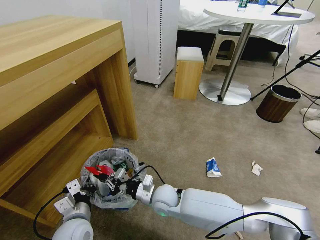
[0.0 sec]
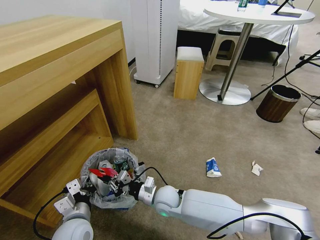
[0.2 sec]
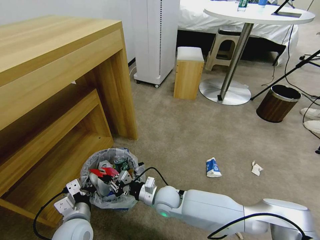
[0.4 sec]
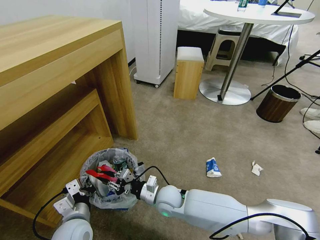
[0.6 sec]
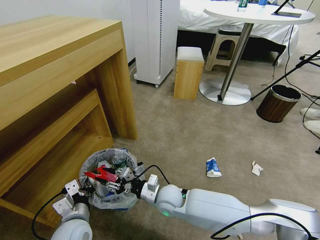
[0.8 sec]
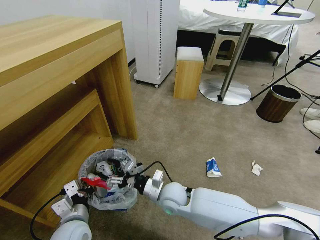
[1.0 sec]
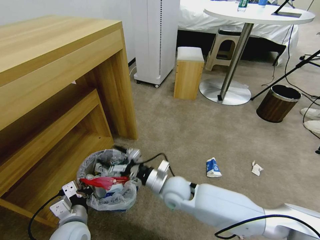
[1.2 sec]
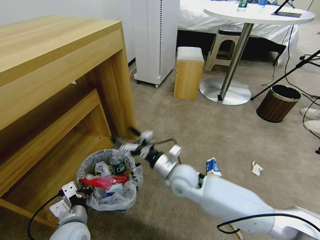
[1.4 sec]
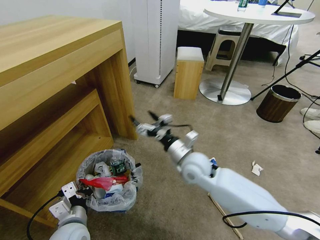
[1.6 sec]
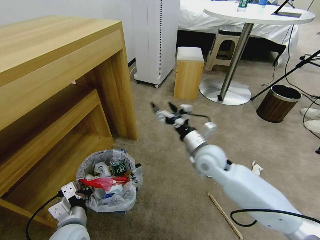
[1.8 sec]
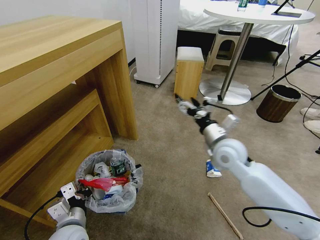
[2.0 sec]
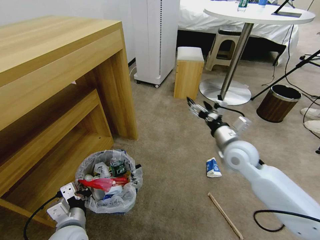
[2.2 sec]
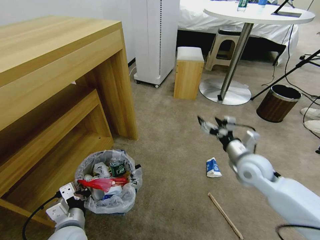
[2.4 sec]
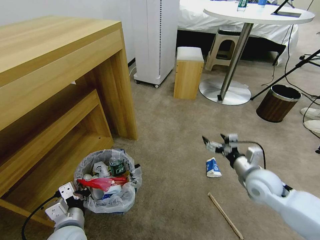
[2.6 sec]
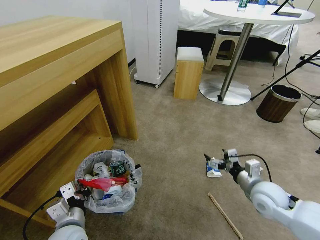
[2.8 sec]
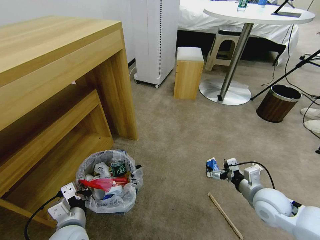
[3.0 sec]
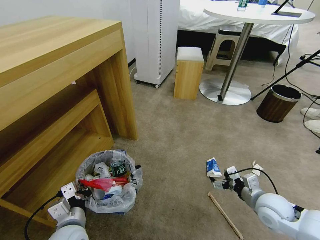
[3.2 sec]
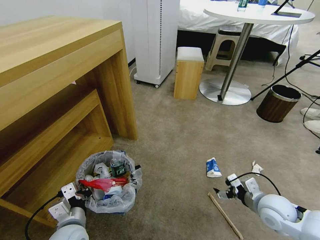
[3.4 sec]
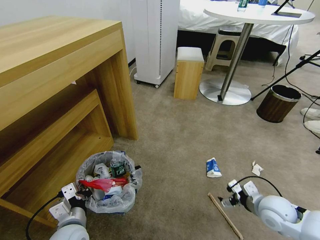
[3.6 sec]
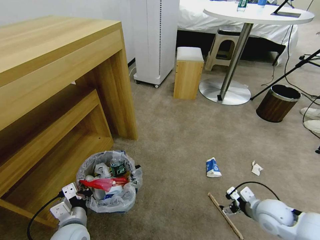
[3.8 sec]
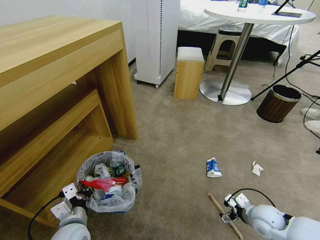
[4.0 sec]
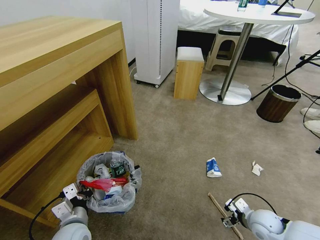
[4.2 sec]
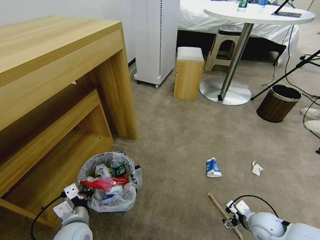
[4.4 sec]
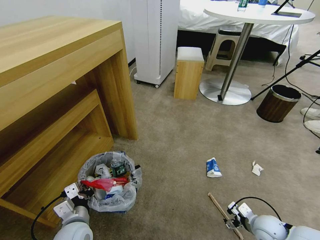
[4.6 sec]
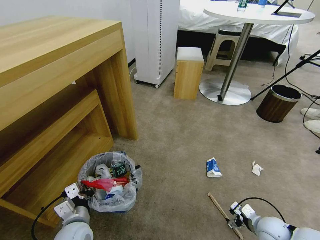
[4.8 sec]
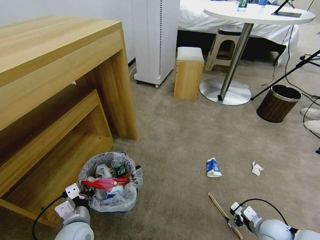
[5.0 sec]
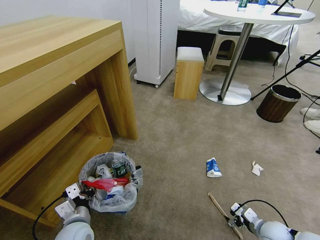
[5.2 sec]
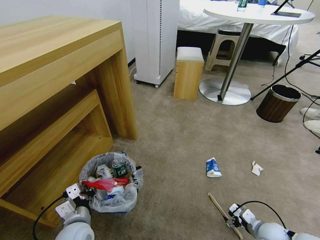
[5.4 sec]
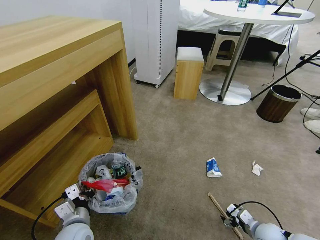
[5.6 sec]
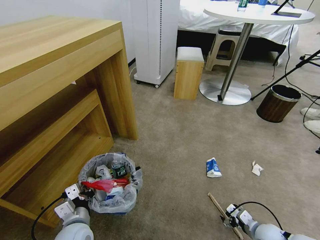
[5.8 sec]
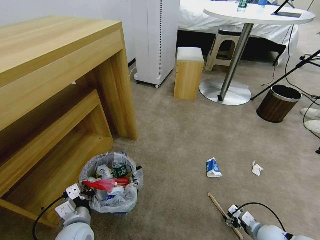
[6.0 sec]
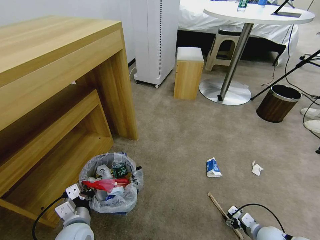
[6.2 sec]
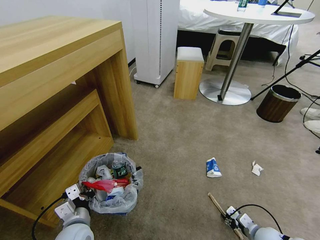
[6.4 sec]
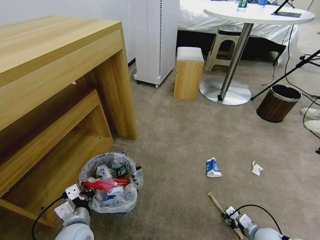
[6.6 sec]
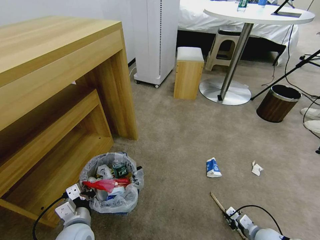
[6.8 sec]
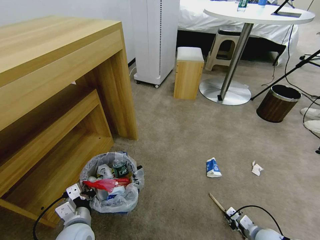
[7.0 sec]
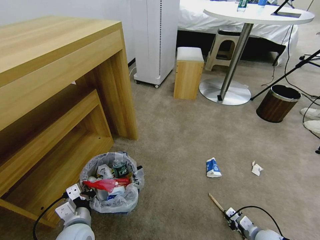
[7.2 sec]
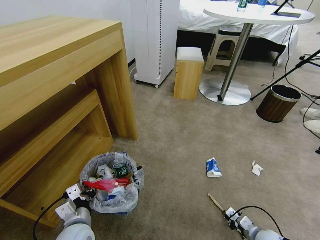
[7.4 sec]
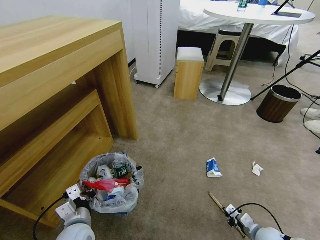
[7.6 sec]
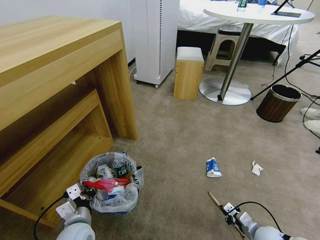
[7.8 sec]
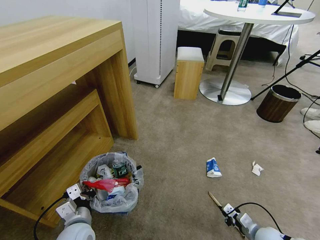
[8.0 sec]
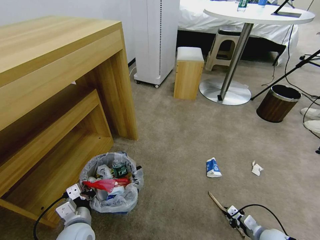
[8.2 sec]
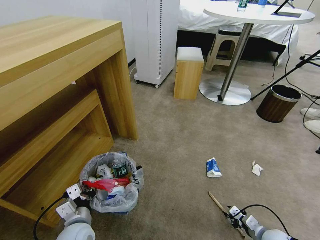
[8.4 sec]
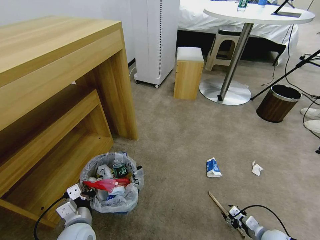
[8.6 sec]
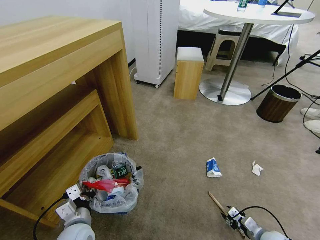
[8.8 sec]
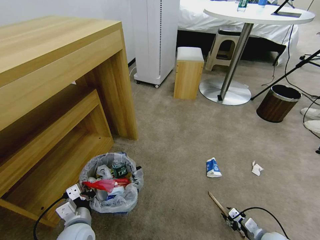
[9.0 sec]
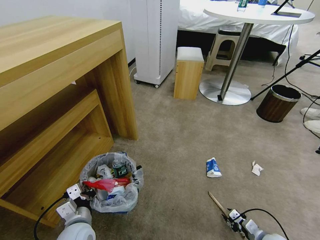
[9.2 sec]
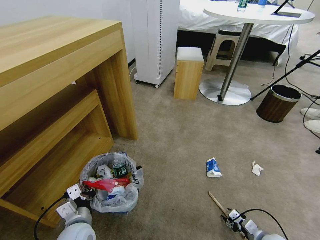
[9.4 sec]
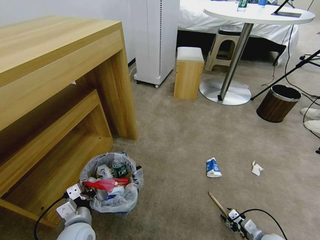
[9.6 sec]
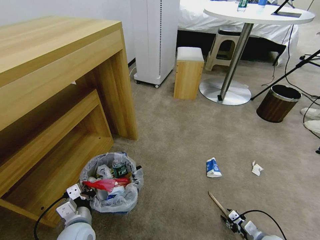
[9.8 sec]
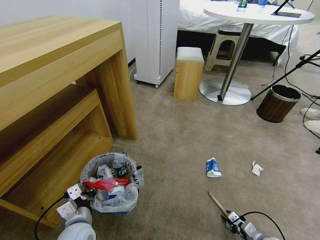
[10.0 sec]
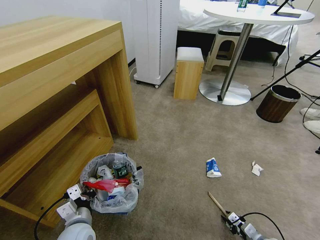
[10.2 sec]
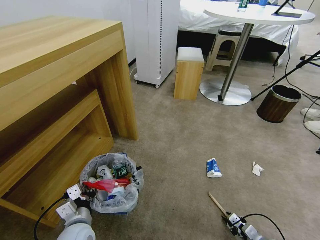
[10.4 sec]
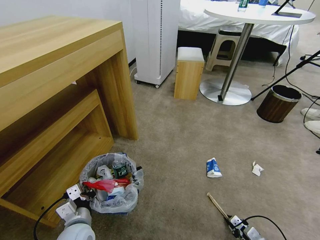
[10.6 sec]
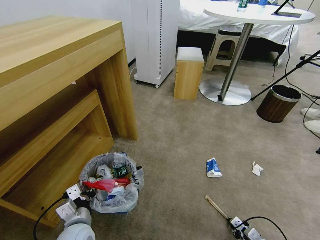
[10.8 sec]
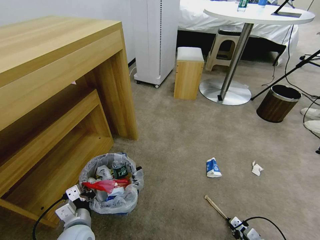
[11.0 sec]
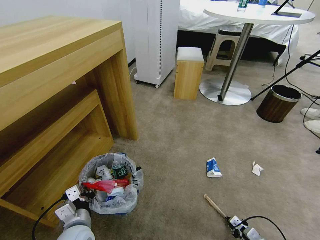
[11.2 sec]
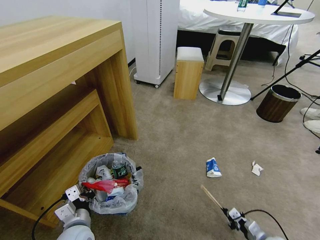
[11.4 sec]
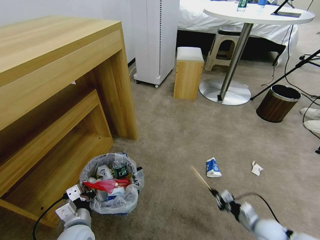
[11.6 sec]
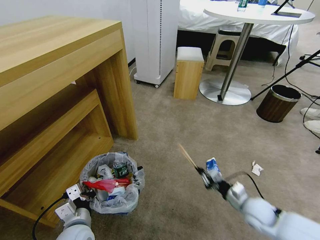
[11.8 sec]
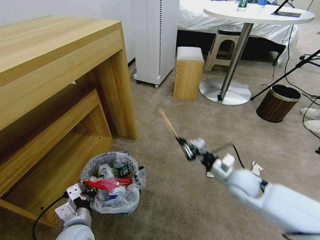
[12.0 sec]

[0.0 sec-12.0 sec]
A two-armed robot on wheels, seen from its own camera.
Task of the whole recording: Pick up the trash bin and place the garbage on the floor into it.
0.0 sec to 1.6 sec: The right gripper is displaced upward and to the right by roughly 15 cm, and opens up.
1.6 sec to 3.0 sec: The right gripper is displaced to the right and backward by approximately 25 cm.
3.0 sec to 4.4 sec: The right gripper heads downward, covering about 10 cm.
4.4 sec to 6.0 sec: The right gripper goes approximately 5 cm downward.
6.0 sec to 7.6 sec: The right gripper closes up.
7.6 sec to 9.0 sec: The right gripper opens.
9.0 sec to 10.4 sec: There are only small adjustments of the grippers.
10.4 sec to 12.0 sec: The right gripper is displaced upward, forward and to the left by some 30 cm.

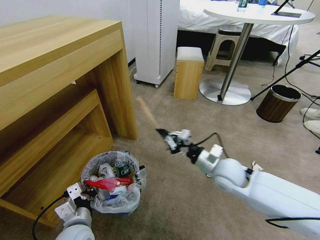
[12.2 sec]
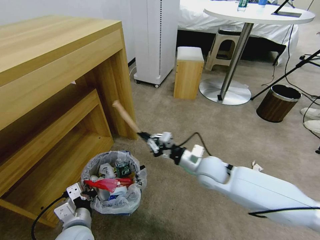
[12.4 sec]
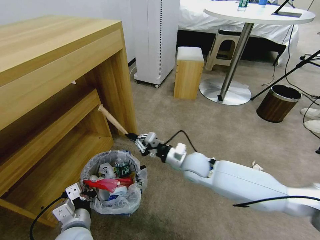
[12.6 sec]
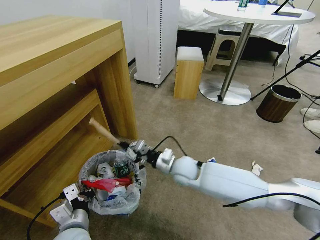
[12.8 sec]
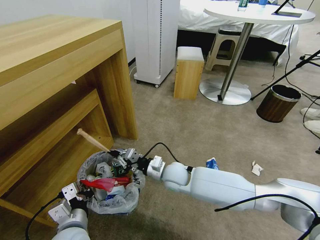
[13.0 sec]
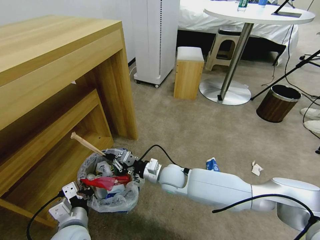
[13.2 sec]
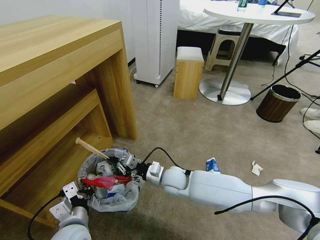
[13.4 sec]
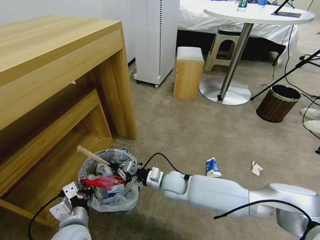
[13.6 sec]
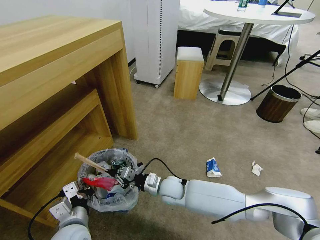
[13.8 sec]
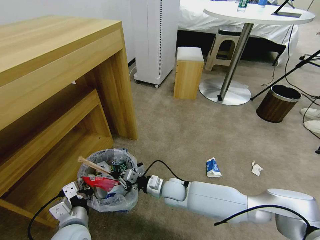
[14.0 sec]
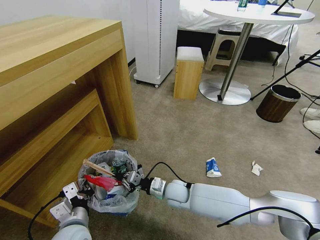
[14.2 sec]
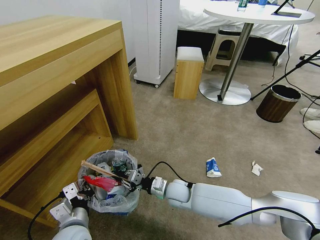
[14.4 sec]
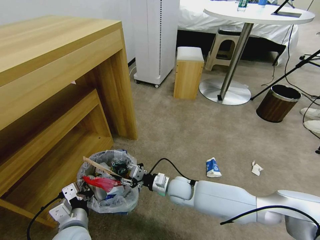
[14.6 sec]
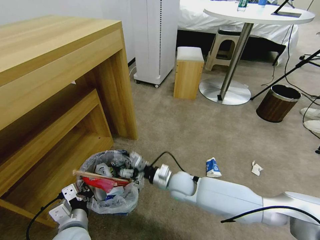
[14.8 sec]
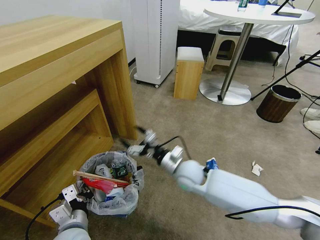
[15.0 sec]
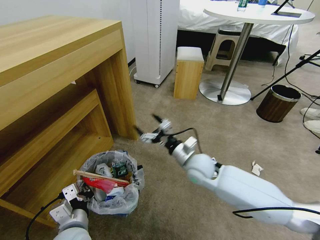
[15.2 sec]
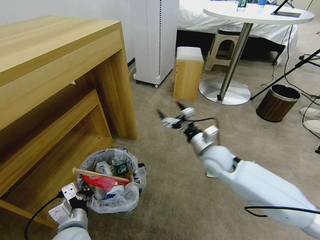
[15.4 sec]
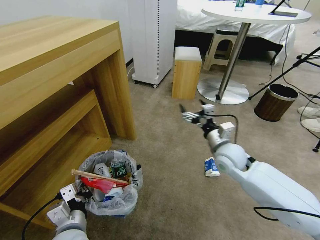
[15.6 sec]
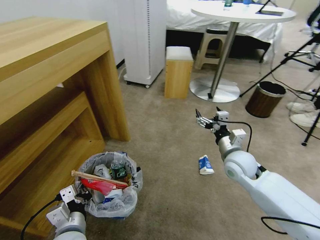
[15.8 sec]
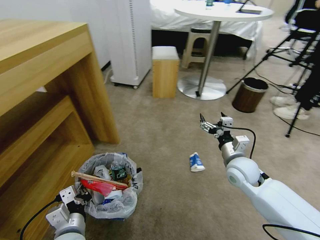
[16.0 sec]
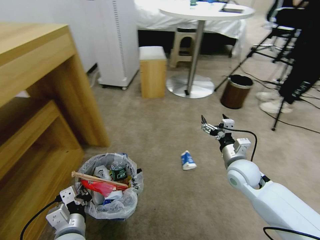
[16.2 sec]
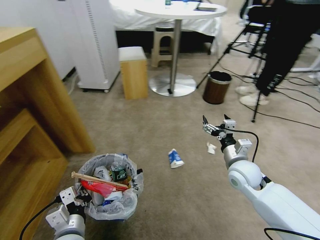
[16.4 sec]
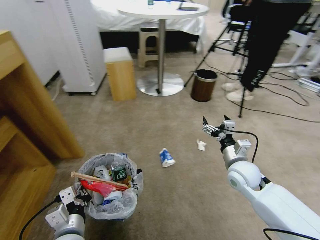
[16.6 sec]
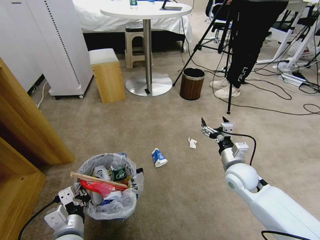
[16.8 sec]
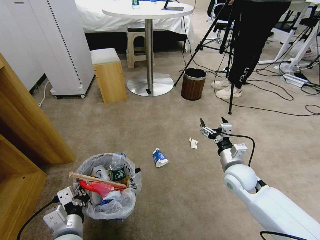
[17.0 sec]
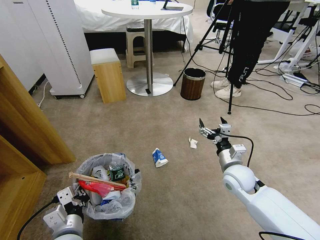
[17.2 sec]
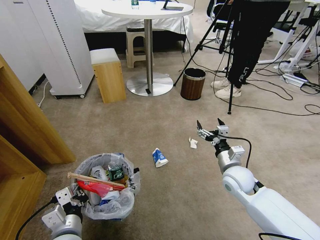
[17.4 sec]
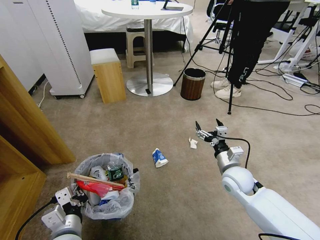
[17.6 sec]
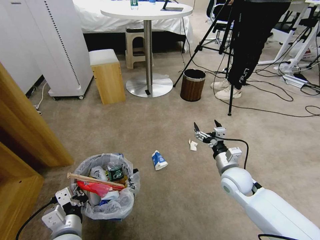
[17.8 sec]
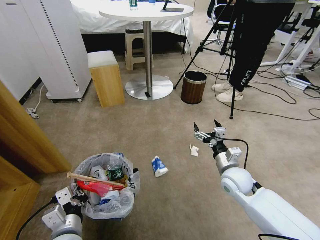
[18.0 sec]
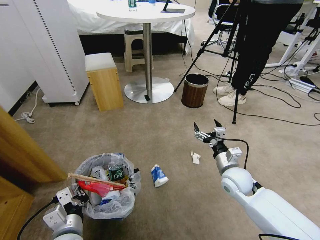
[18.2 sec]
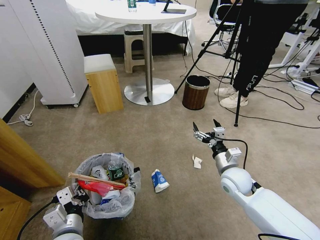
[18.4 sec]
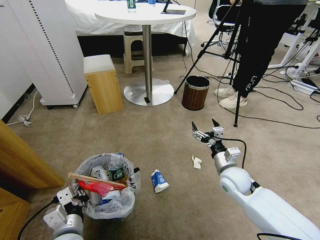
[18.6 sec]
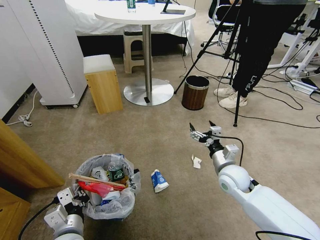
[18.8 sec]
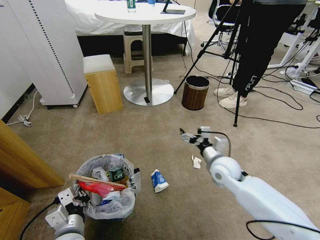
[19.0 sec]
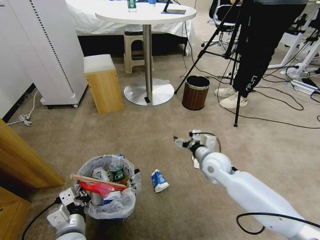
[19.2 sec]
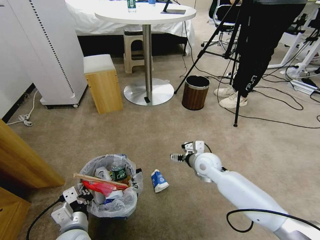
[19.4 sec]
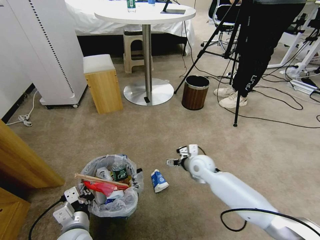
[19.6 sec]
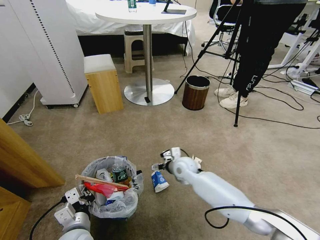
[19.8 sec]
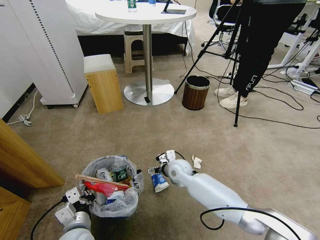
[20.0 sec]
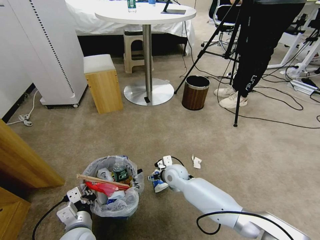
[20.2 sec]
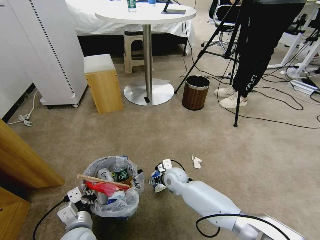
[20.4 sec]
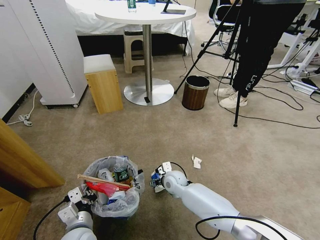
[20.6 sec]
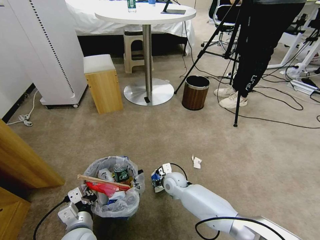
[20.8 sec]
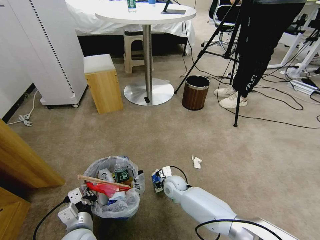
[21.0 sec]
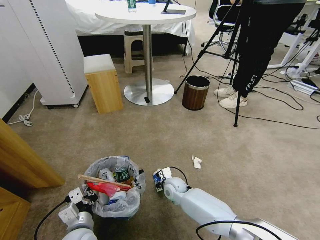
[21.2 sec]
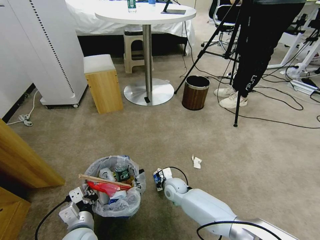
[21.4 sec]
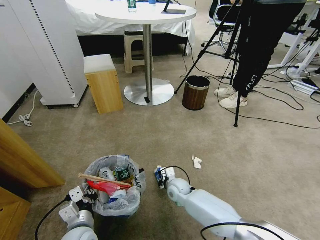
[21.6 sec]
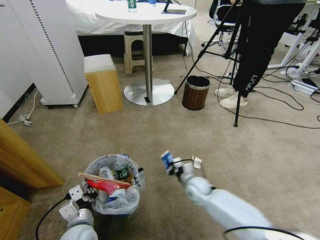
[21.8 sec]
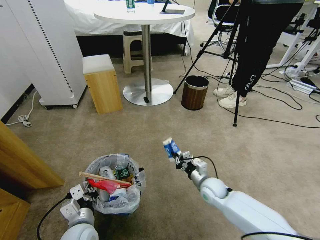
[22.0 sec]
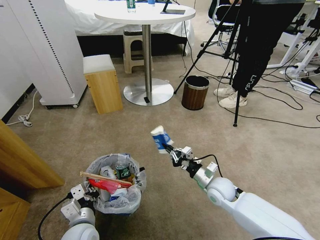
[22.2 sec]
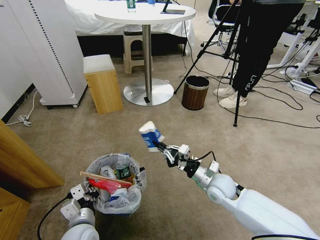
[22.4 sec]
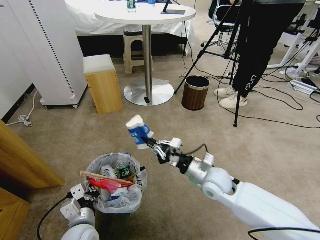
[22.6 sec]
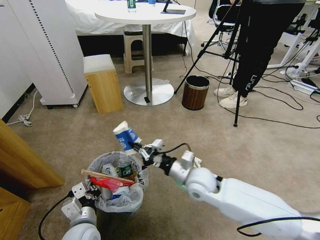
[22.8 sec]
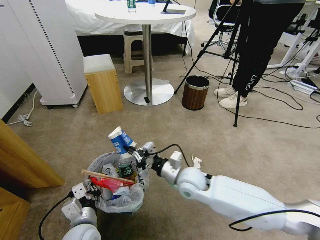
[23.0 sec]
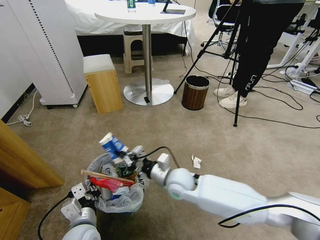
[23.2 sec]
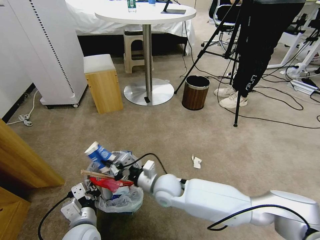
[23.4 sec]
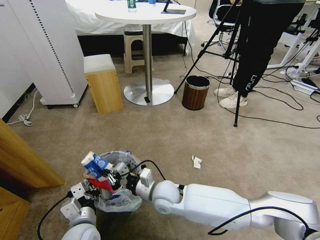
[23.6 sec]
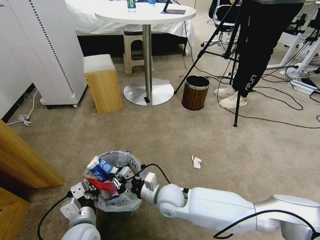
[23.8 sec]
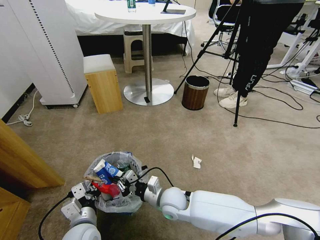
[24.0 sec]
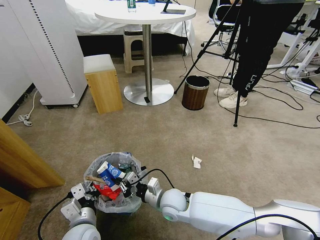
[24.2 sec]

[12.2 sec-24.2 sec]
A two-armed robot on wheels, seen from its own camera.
Task of the whole recording: Pick up the trash bin and place the garbage on the floor into it.
12.2 sec to 13.8 sec: The right gripper goes roughly 20 cm to the left and downward.
13.8 sec to 15.2 sec: The right gripper goes approximately 15 cm upward and to the right, and opens.
15.2 sec to 16.6 sec: The right gripper is displaced to the right by approximately 15 cm.
18.2 sec to 19.8 sec: The right gripper travels to the left and forward by some 15 cm.
19.8 sec to 21.2 sec: The right gripper shifts some 10 cm downward, and closes.
21.2 sec to 22.6 sec: The right gripper moves upward and to the right, approximately 20 cm.
22.6 sec to 24.2 sec: The right gripper heads to the left and downward, covering some 15 cm.
